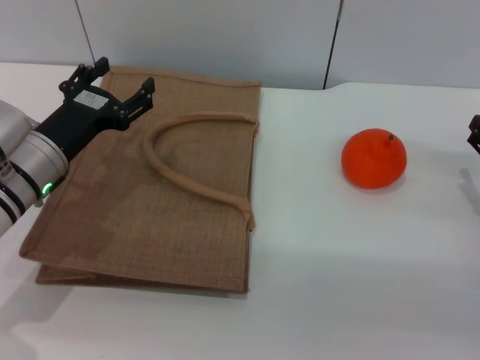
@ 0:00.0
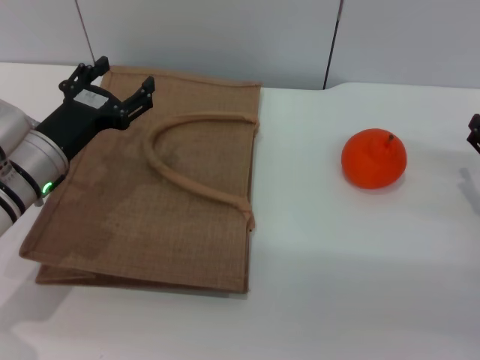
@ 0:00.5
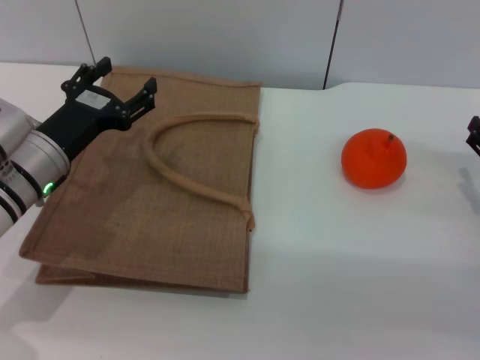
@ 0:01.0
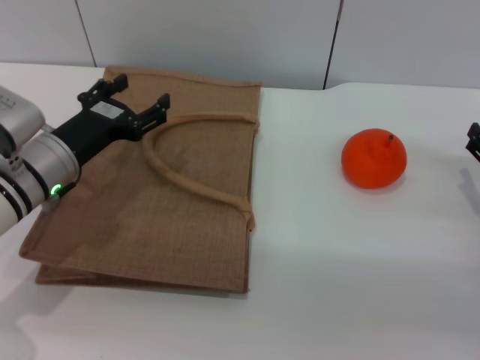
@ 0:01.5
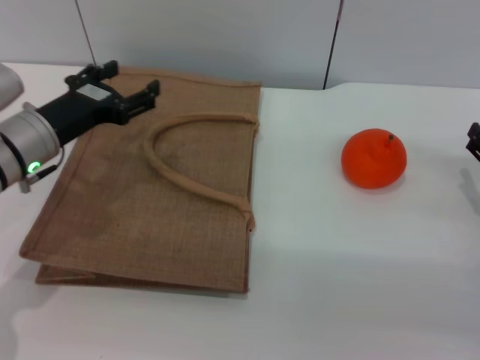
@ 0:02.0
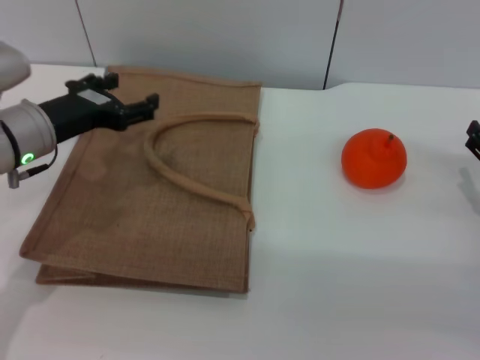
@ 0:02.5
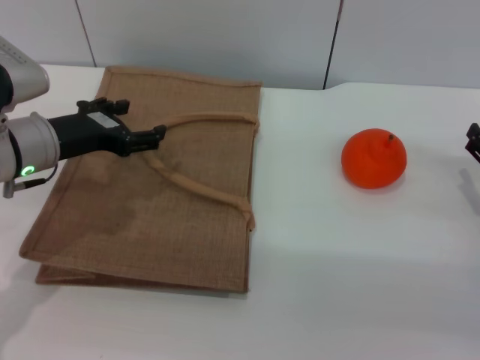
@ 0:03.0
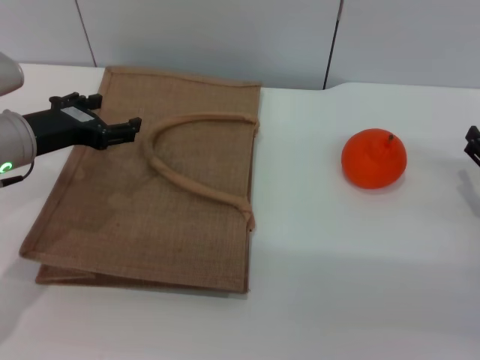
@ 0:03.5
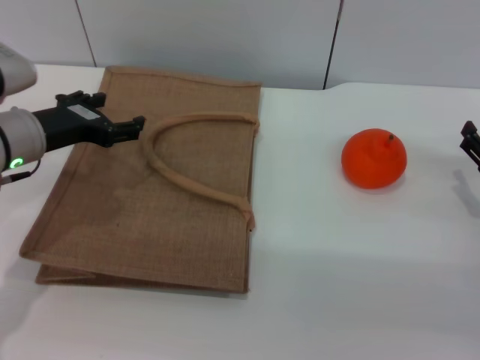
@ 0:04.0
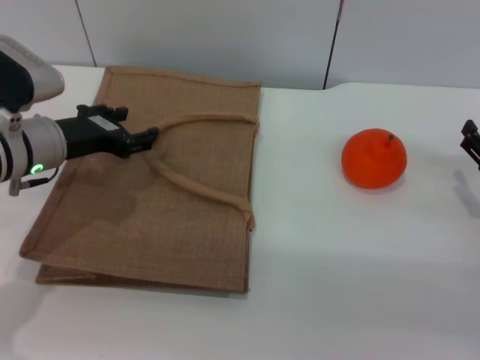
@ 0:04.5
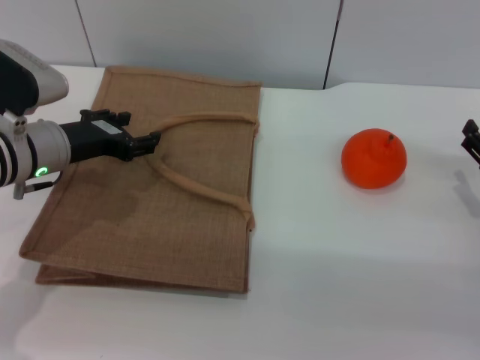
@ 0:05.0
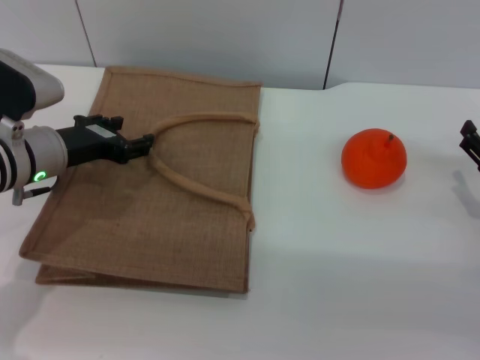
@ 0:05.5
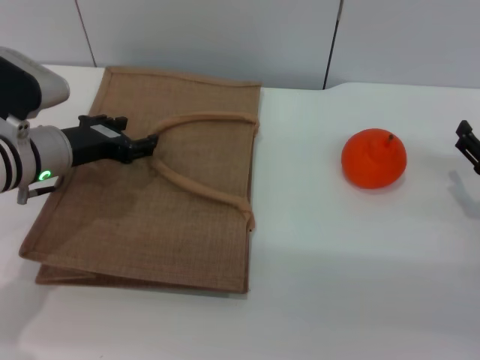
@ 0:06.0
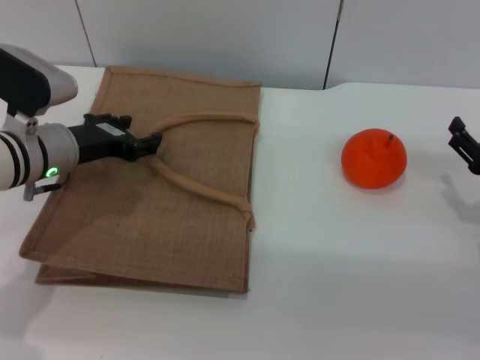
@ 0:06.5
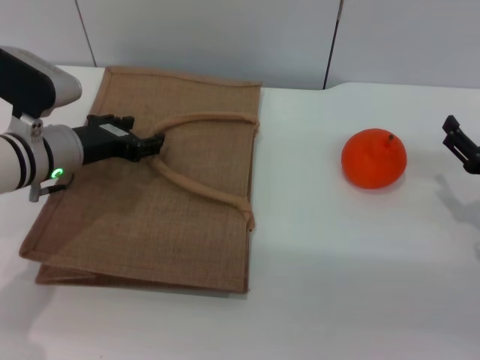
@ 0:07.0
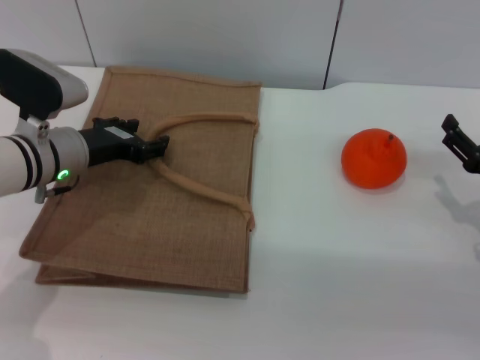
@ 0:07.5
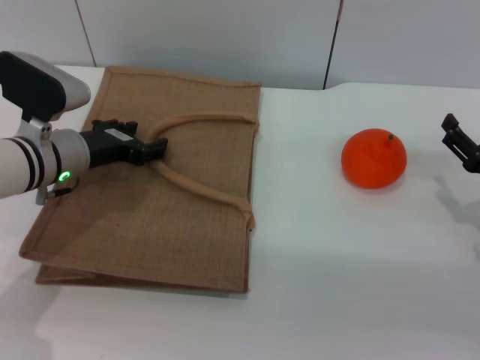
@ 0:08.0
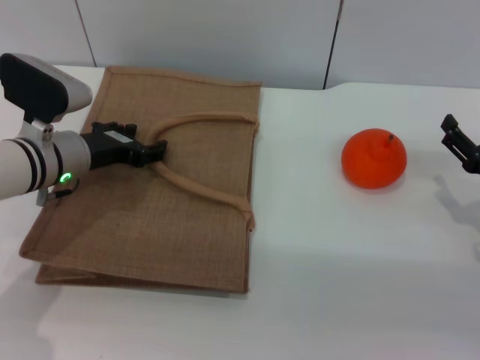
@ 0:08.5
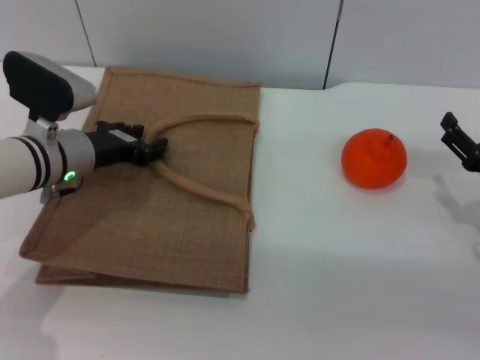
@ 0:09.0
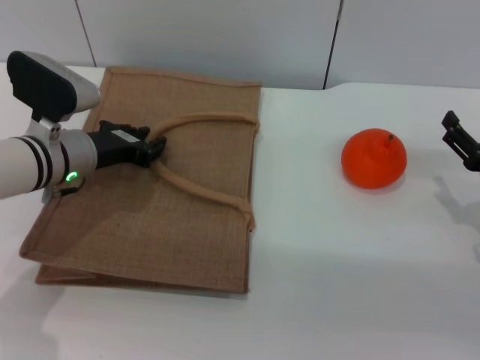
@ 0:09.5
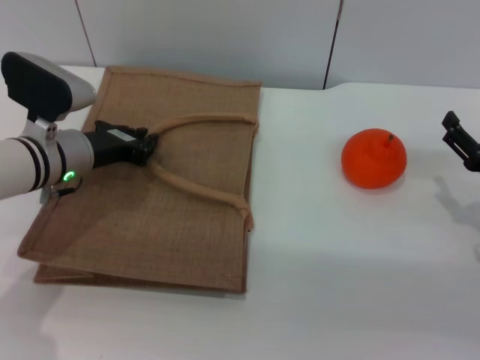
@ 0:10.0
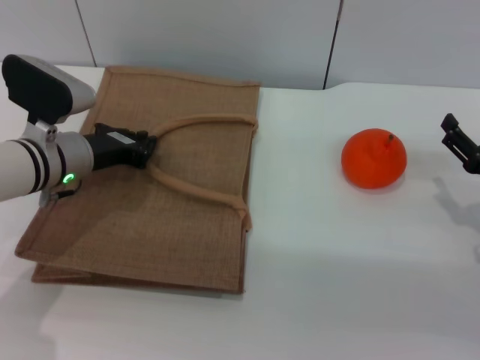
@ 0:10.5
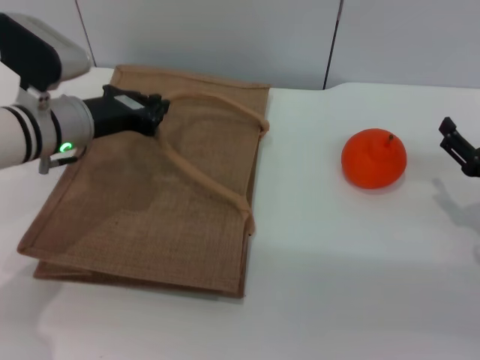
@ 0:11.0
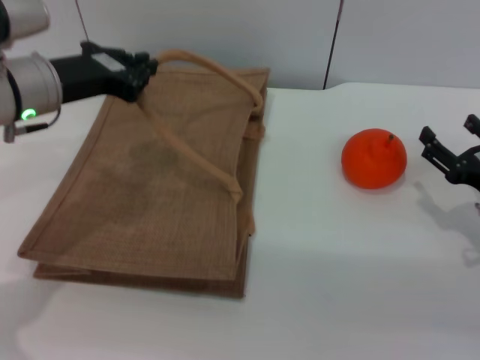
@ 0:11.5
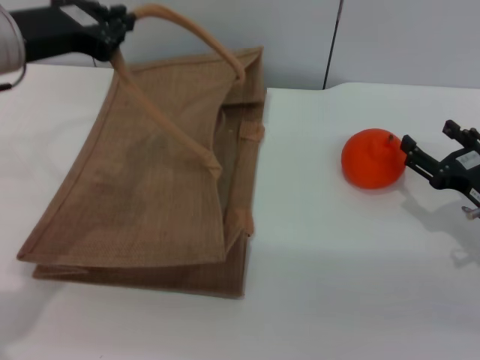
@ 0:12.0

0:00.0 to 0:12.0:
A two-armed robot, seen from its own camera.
Task of the whole recording: pick up the orange from the table and place it in the brown handbag.
Step, 0:00.0 to 0:11.5: Lift the woven bag with the left gripper to open it.
0:00.0 to 0:02.0: There are only small adjustments of the grippers.
0:02.0 to 0:04.0: The grippers move only a little.
0:04.0 to 0:08.0: The grippers move only a little.
0:08.0 to 0:10.0: The left gripper closes its fingers.
0:10.0 to 0:12.0: The left gripper is displaced upward by approximately 15 cm.

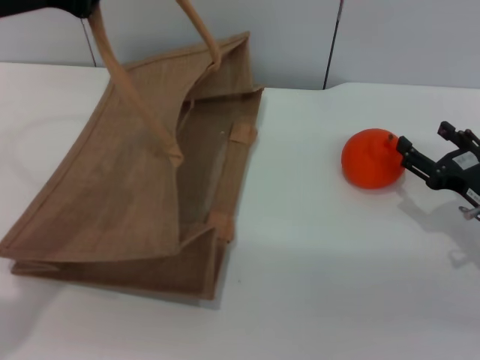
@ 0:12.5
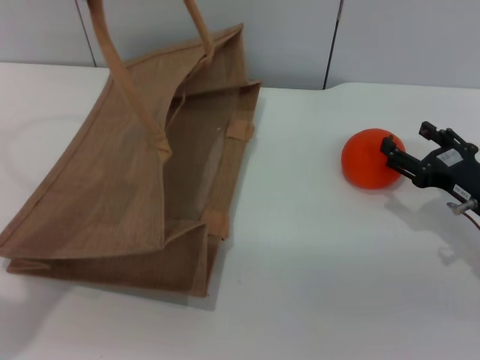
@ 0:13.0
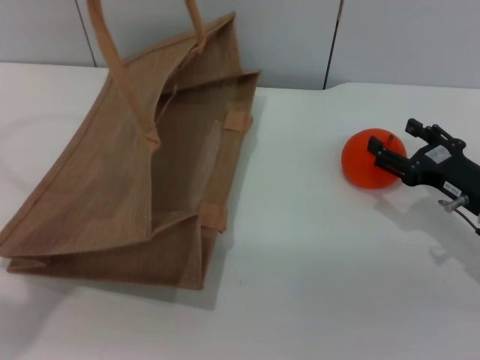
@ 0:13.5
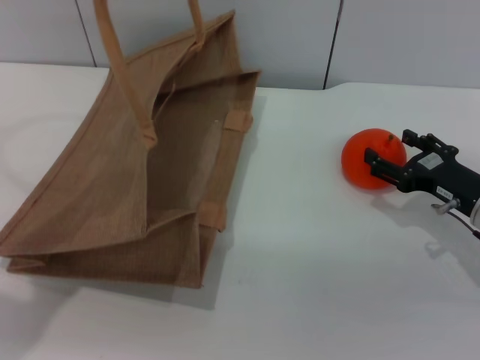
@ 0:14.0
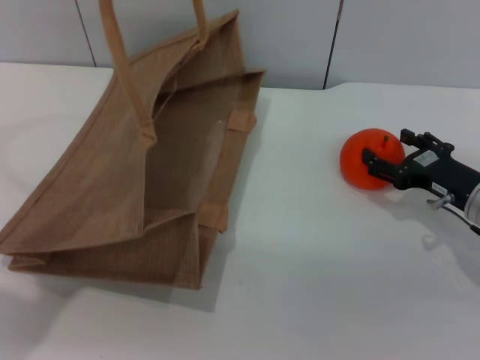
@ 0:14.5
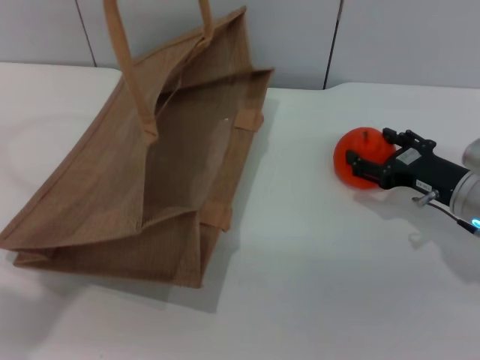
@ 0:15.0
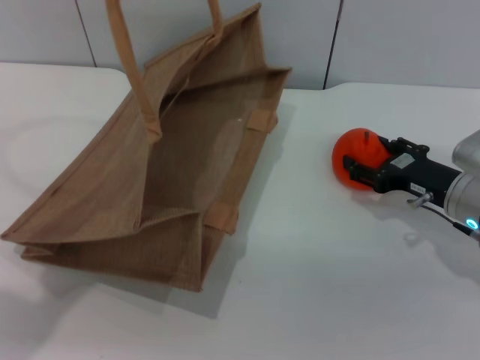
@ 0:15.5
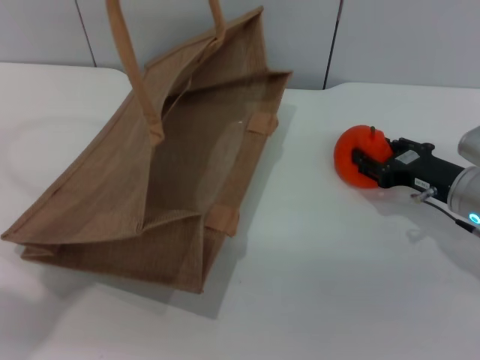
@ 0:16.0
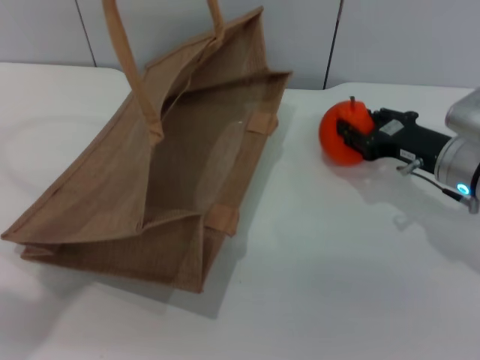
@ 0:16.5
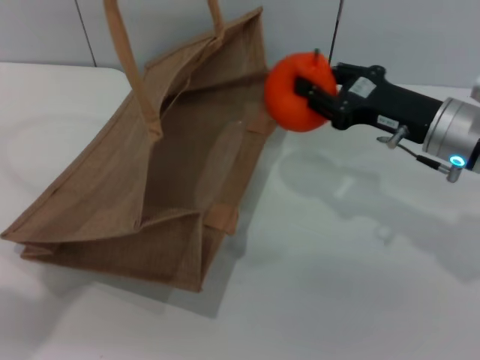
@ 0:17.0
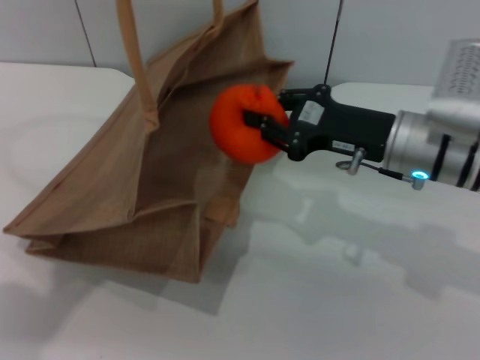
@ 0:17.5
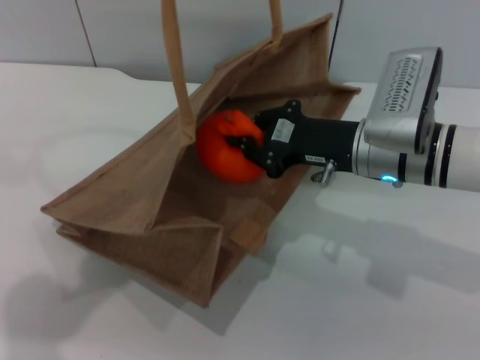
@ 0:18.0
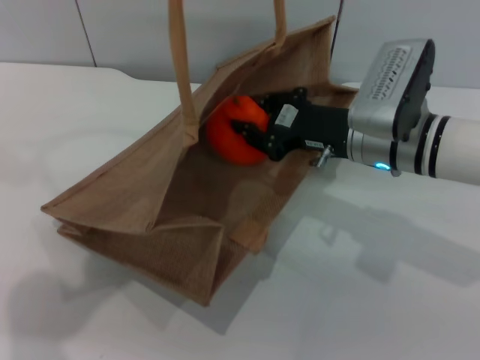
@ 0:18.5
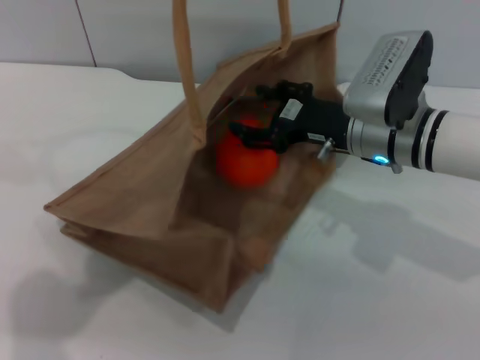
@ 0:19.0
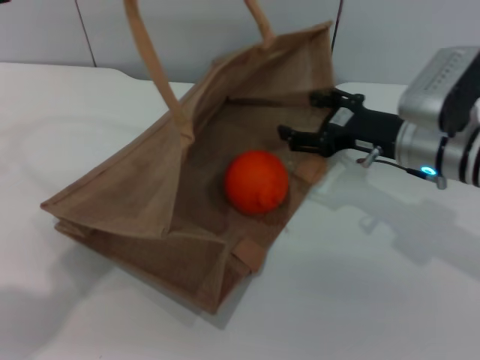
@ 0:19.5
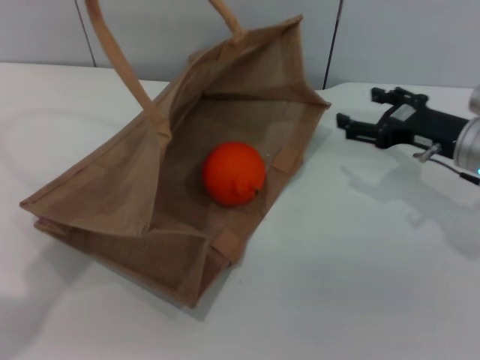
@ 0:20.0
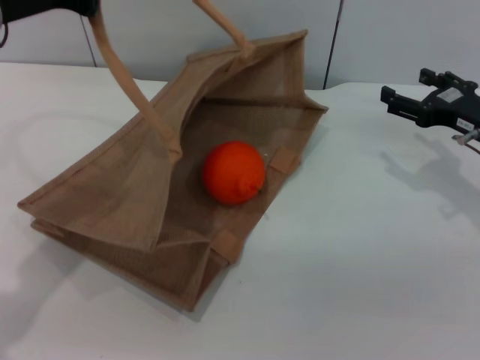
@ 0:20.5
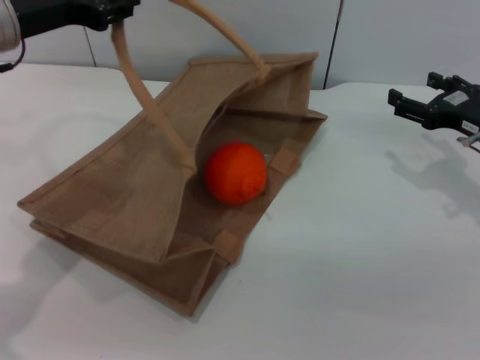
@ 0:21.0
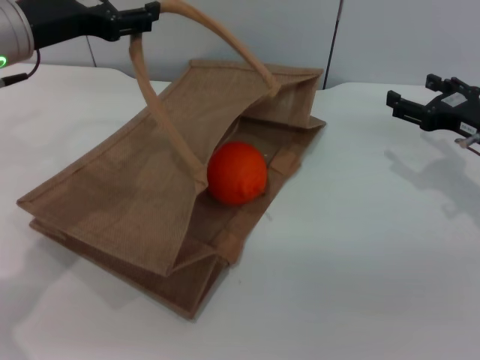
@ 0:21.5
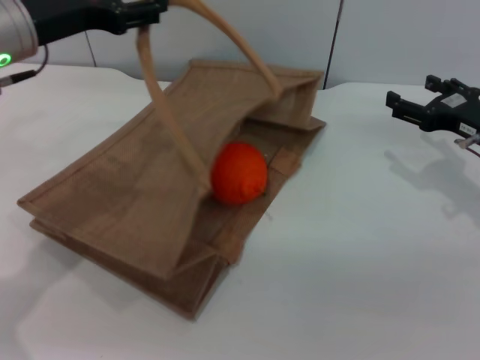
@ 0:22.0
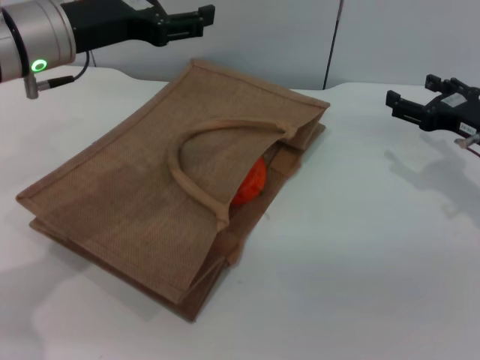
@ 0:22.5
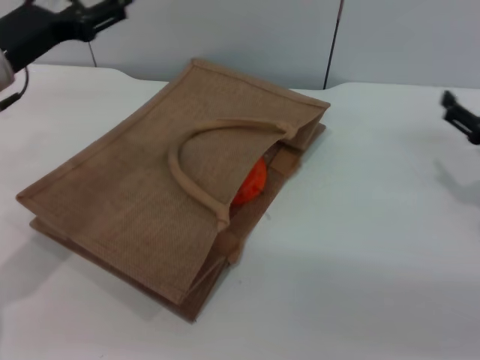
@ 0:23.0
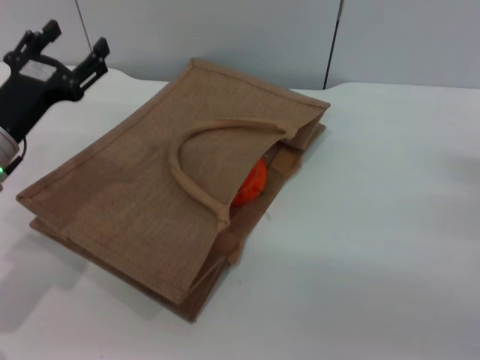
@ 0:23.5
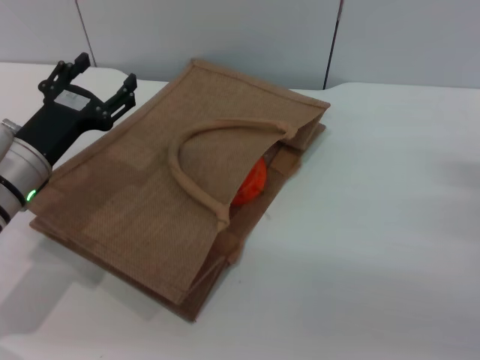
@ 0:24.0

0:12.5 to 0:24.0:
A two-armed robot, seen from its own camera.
Task of the whole recording: pick up the orange from the table and place it in the brown handbag.
Step, 0:12.5 to 0:16.5: Pick up the orange with the right gripper.
Step, 0:17.0 to 0:19.5: Place the orange into the woven bag with the right gripper.
Step, 0:20.0 to 0:22.0: Lower the woven bag with the left gripper to close it.
0:12.5 to 0:14.5: There are only small adjustments of the grippers.
0:14.5 to 0:16.5: The right gripper changes place by roughly 5 cm, and closes up.
0:16.5 to 0:18.5: The right gripper is displaced to the left by some 10 cm, and closes its fingers. Meanwhile the left gripper moves to the right, approximately 5 cm.
0:18.5 to 0:20.0: The right gripper moves to the right, about 10 cm, and opens up. The left gripper travels to the left by some 5 cm.
0:20.0 to 0:22.0: The left gripper moves downward, some 5 cm, and opens.
0:22.0 to 0:24.0: The left gripper moves downward, approximately 15 cm. Meanwhile the right gripper shifts roughly 10 cm backward and downward.

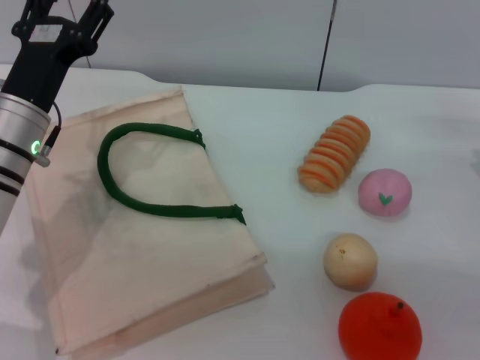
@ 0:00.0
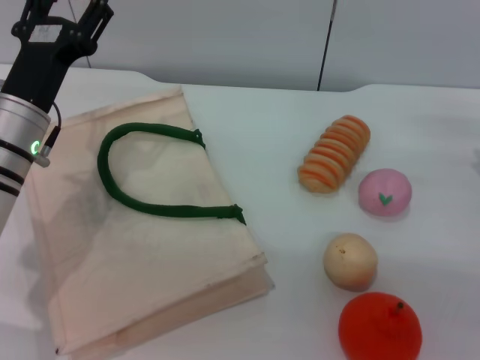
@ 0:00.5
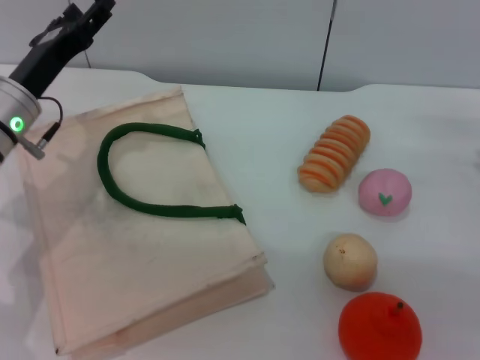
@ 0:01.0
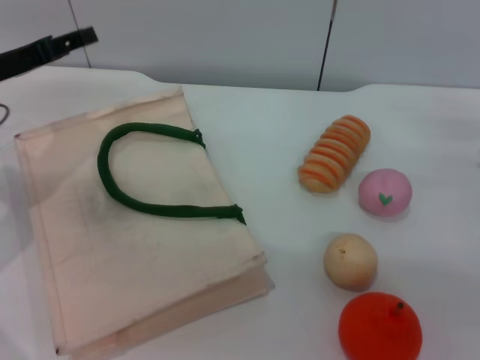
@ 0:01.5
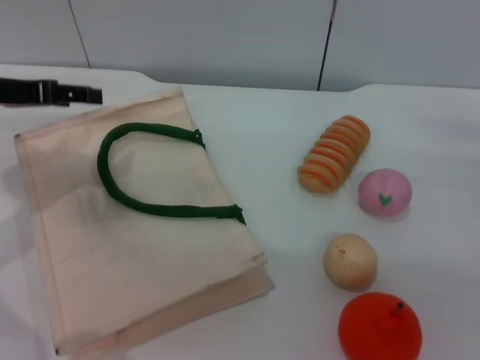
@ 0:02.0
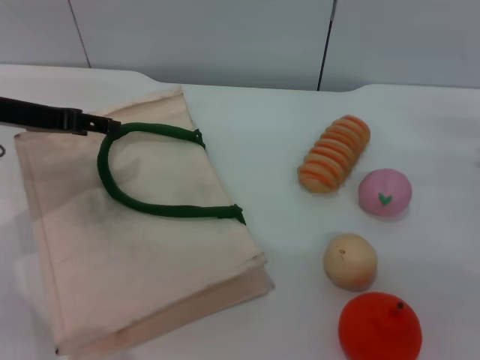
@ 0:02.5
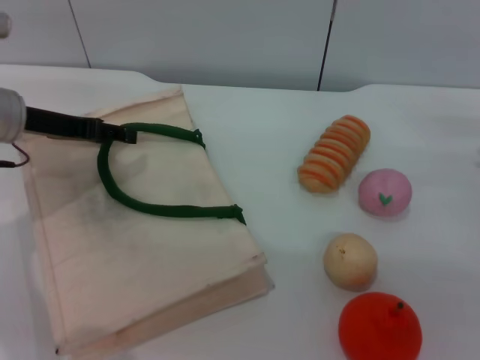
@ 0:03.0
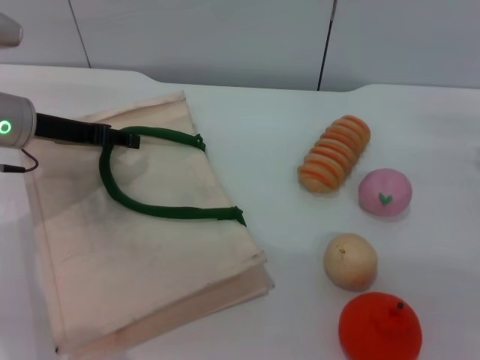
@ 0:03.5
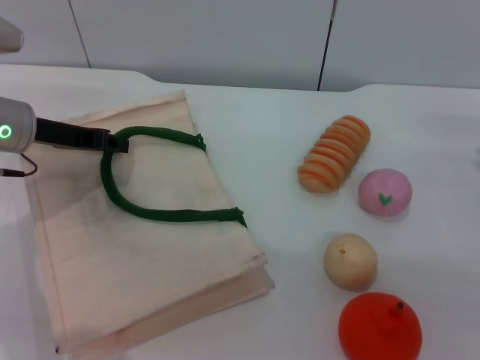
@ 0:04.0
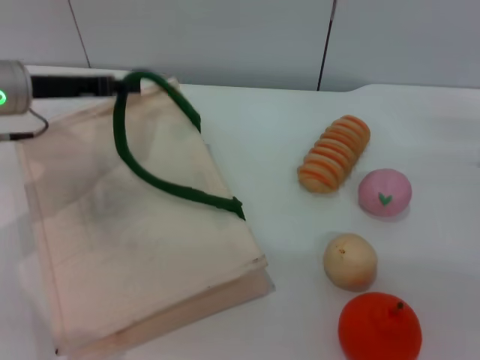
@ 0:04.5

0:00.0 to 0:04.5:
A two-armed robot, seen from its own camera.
Task of the whole recording: pick up the peach from the table and place it in the white handbag.
0:00.0 to 0:02.0: The left gripper is displaced to the left and upward by approximately 10 cm.
0:02.0 to 0:04.5: The left gripper changes place by approximately 5 cm, and closes.
